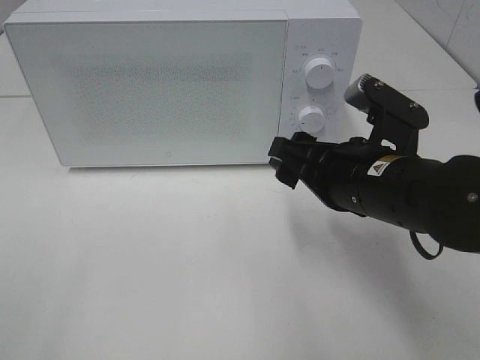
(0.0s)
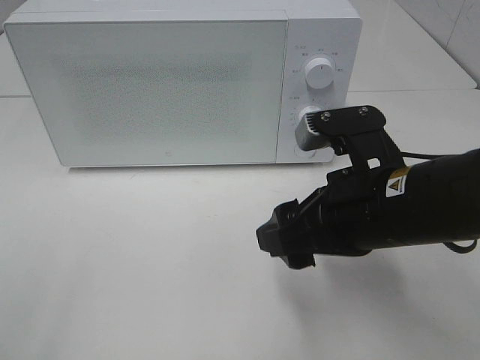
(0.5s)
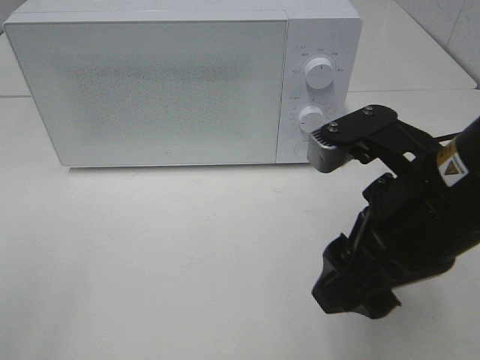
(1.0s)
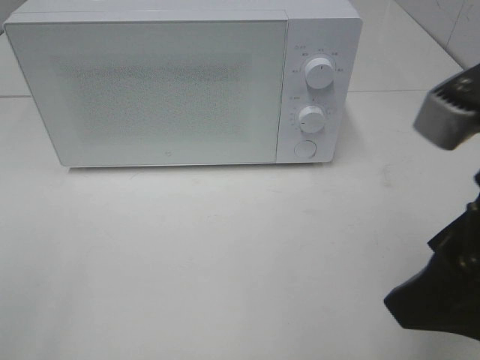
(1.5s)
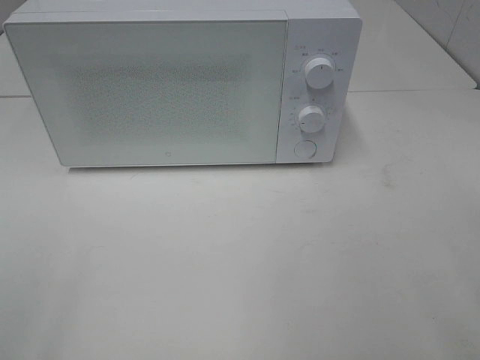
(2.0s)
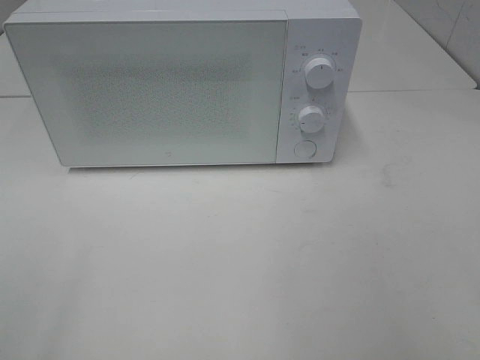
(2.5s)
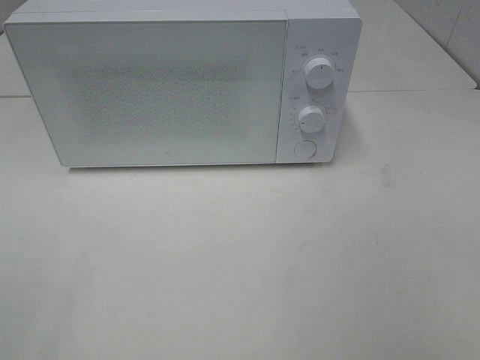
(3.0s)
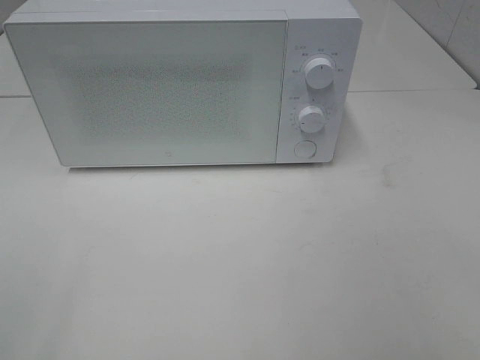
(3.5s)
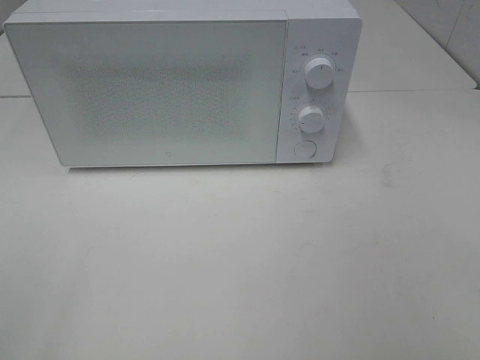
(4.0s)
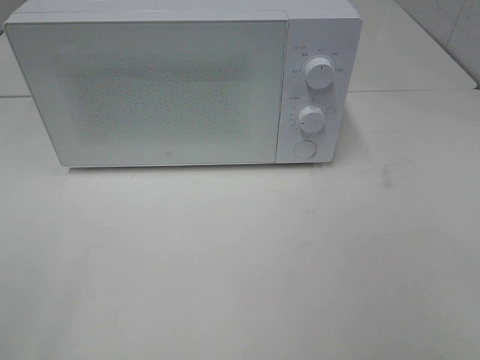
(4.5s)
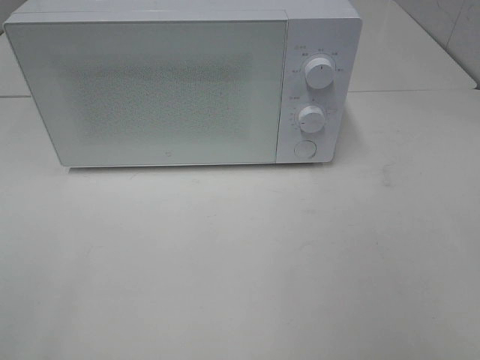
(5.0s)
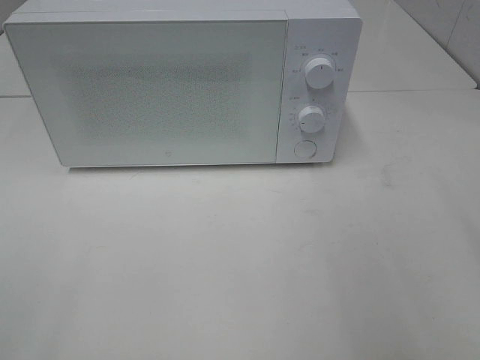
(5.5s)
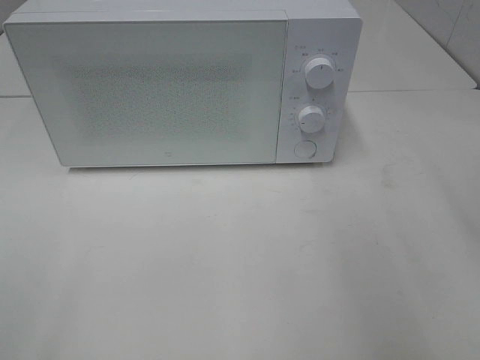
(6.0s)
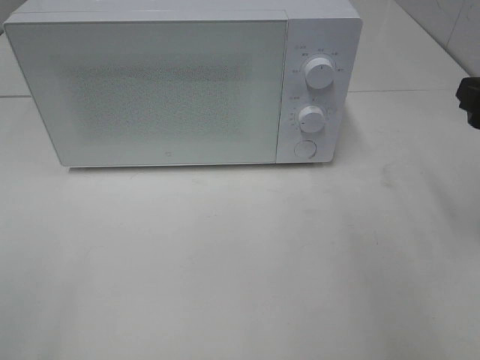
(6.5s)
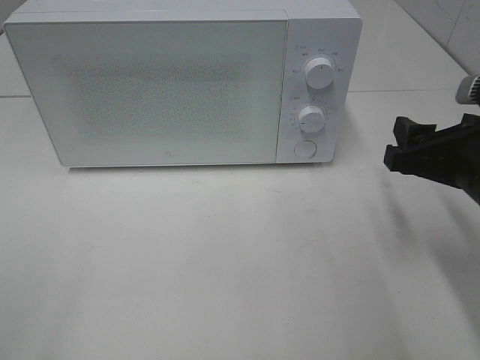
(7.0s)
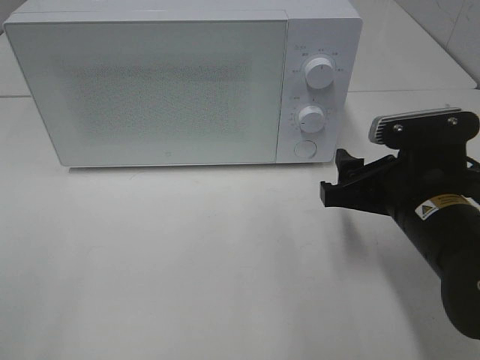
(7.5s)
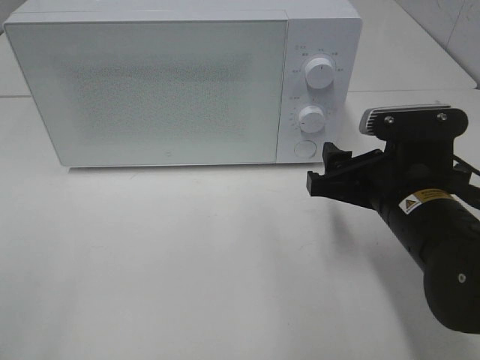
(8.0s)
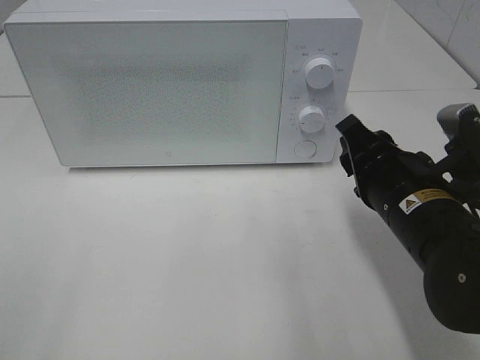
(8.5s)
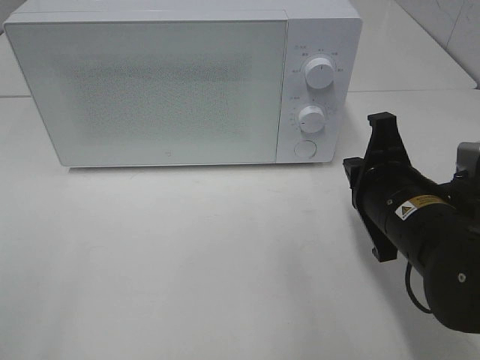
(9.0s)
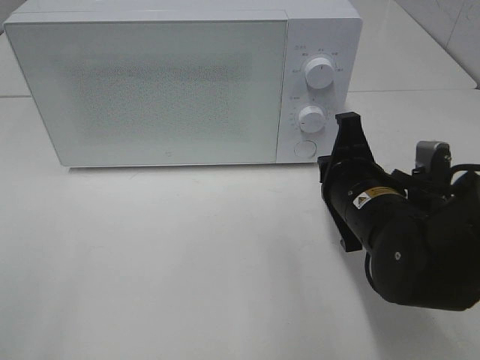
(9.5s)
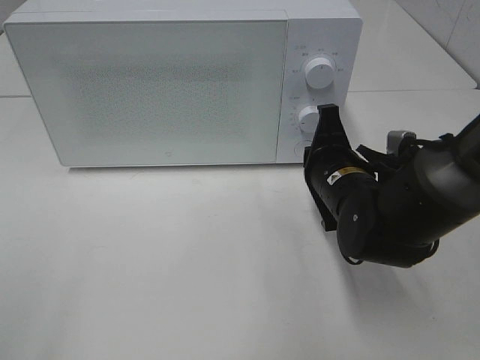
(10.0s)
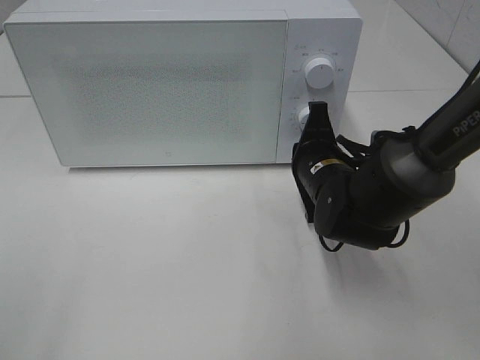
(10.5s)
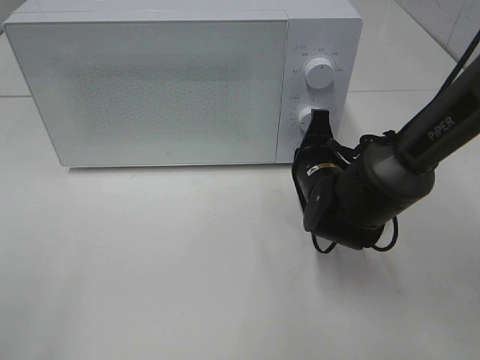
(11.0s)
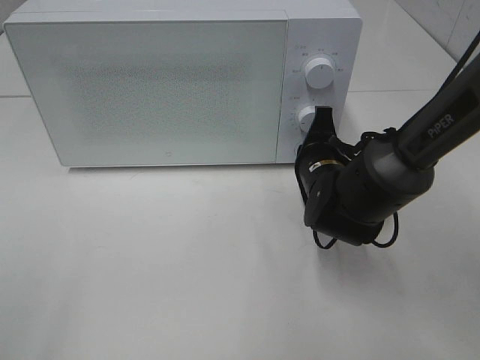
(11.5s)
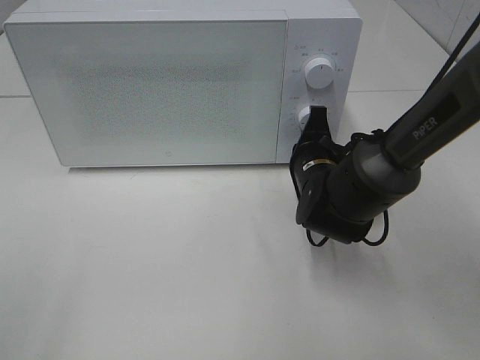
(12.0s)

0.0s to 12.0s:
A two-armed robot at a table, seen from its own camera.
Task of the whole recording: Heat the burger.
0.0s to 2.0s: The right gripper shifts some 25 cm upward, backward and to the right.
6.0s to 8.0s: The right gripper heads downward and to the left, covering about 20 cm.
8.0s to 10.0s: The right gripper moves forward, approximately 10 cm, and closes its fingers.
10.0s to 12.0s: The right gripper ends up about 5 cm from where it was.

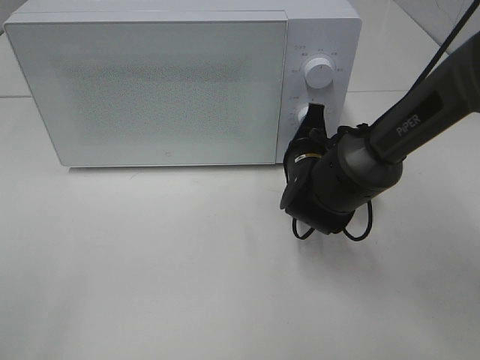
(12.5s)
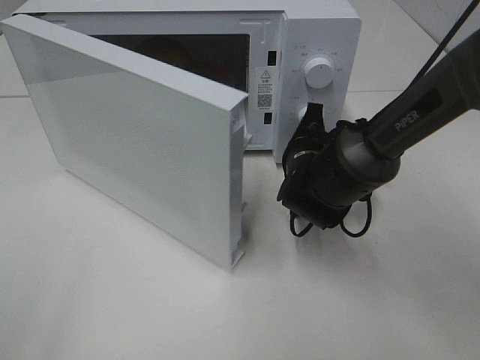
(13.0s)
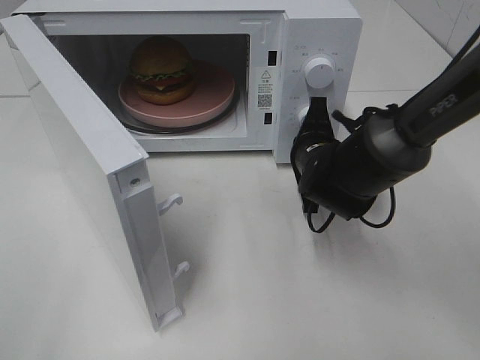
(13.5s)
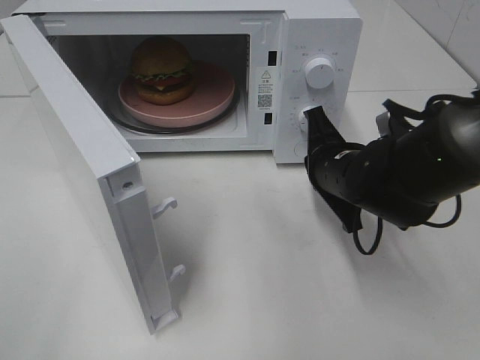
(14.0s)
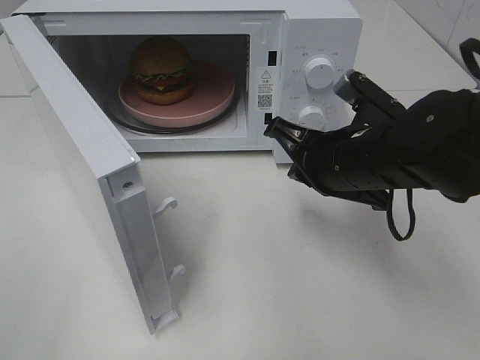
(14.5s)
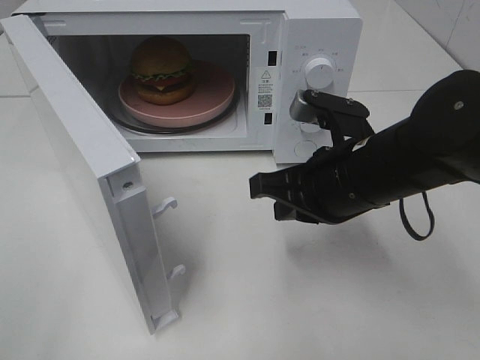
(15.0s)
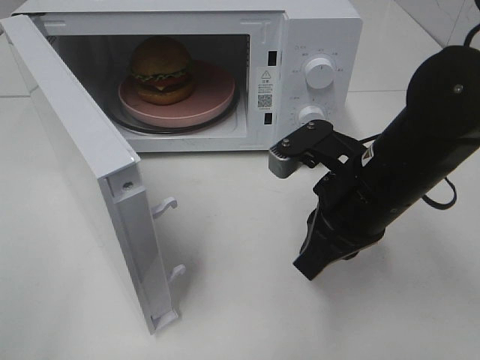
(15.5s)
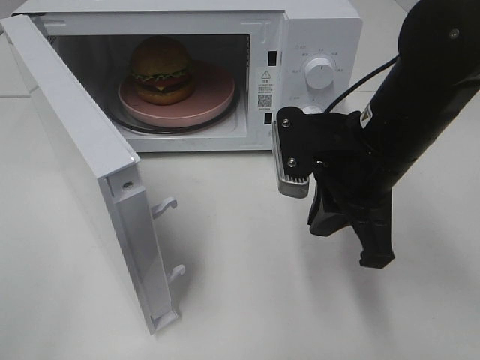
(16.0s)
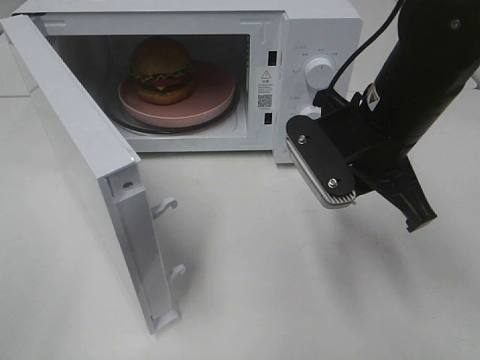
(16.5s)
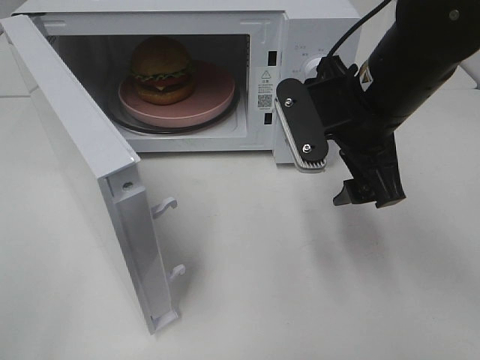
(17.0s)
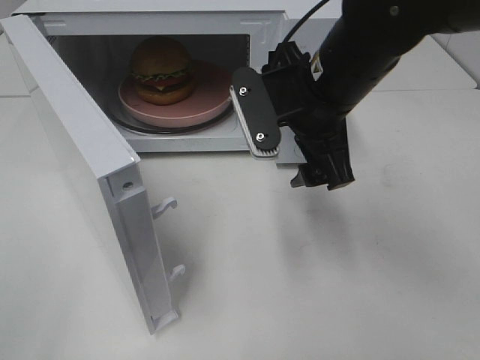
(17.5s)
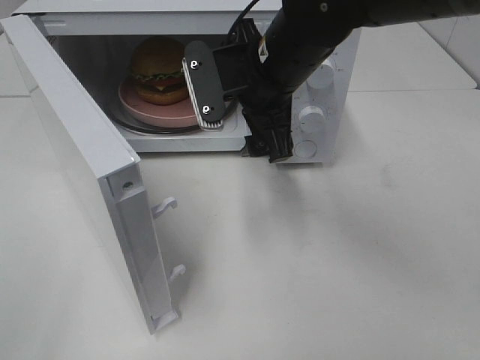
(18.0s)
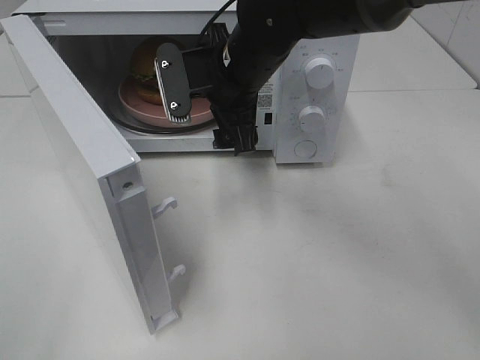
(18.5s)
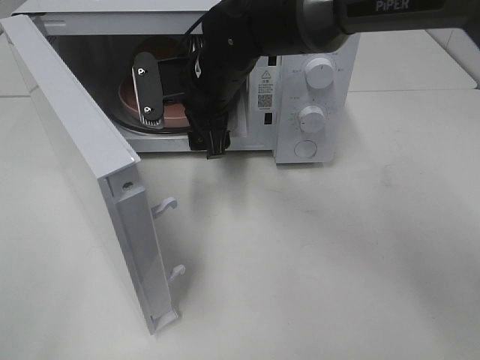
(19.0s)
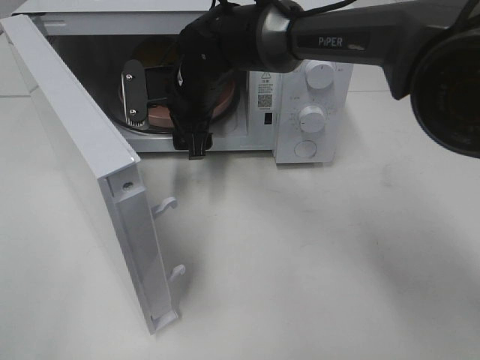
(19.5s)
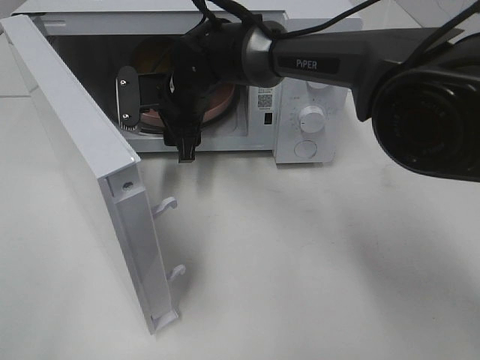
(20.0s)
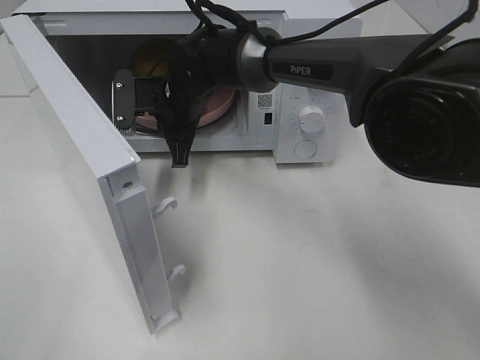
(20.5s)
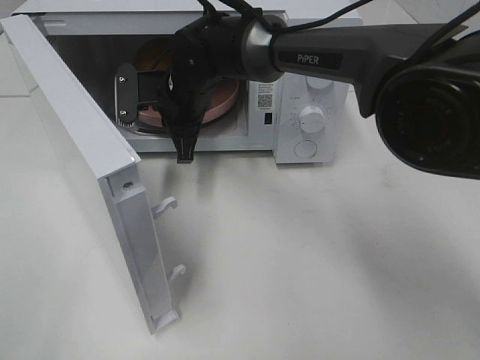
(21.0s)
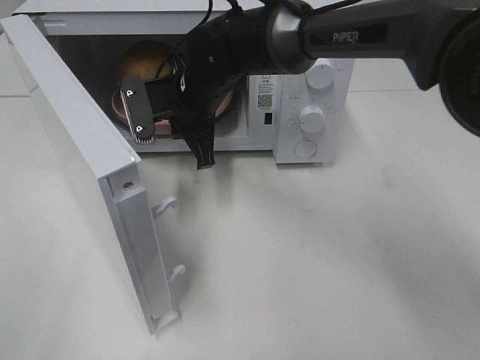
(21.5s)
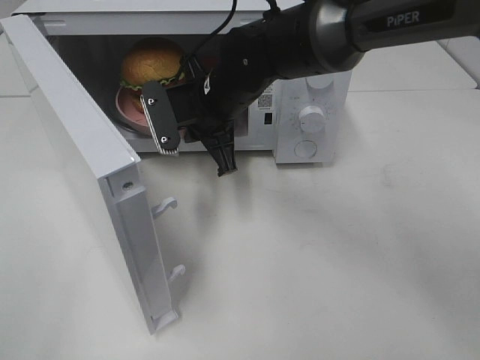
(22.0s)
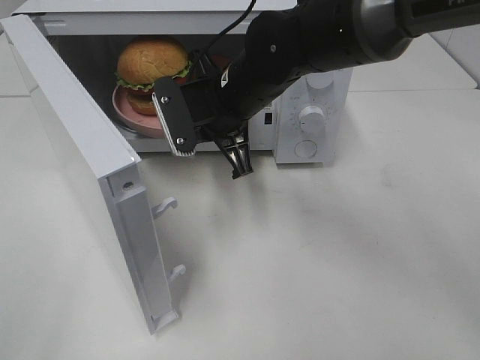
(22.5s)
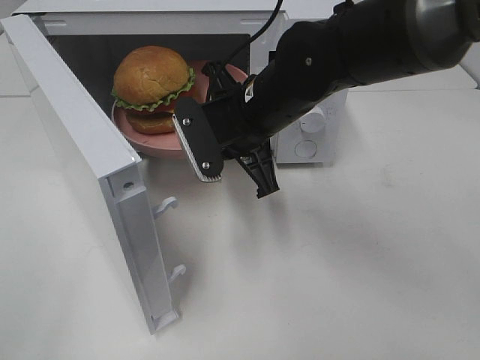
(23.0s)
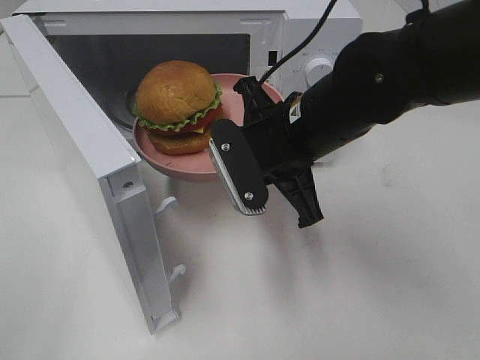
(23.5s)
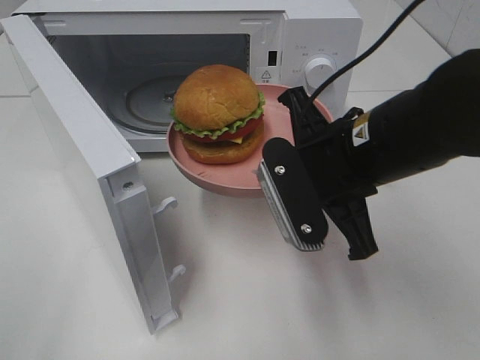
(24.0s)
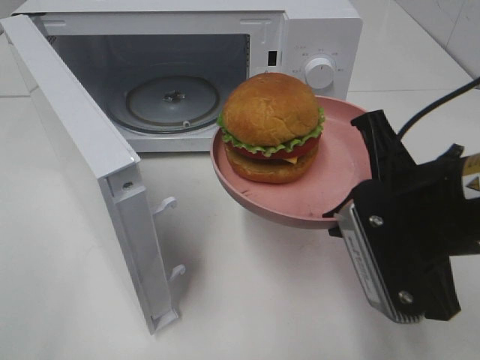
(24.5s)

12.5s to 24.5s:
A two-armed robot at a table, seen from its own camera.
Task of the whole recording: Heat the burger.
Step, 14.0s to 20.0s: Right hand: grab the plate with the hamburger.
12.5s to 14.5s: The right gripper heads upward and backward, covering some 10 cm.
14.5s to 16.5s: The right gripper travels upward by approximately 5 cm.
16.5s to 18.5s: The right gripper travels to the left and forward by approximately 15 cm, and opens.
18.5s to 20.5s: The right gripper heads downward, to the left and forward, covering about 10 cm, and closes.
20.5s to 22.5s: The right gripper moves backward and to the right, approximately 10 cm.
22.5s to 24.5s: The right gripper is displaced backward and to the right by approximately 25 cm.

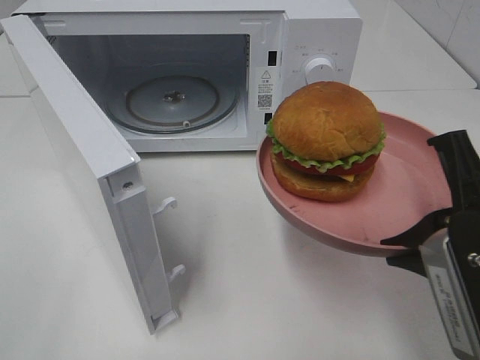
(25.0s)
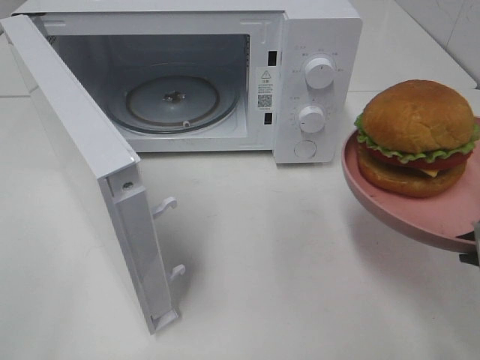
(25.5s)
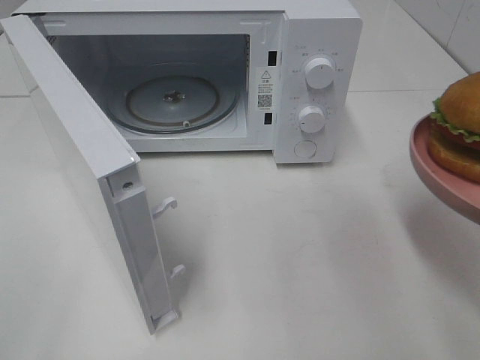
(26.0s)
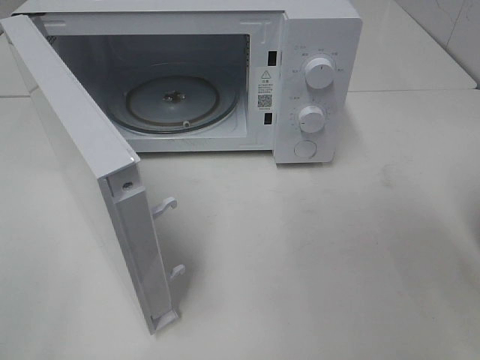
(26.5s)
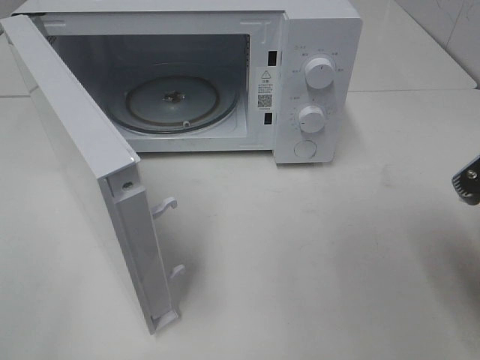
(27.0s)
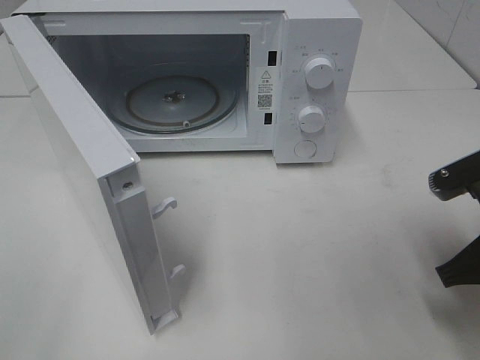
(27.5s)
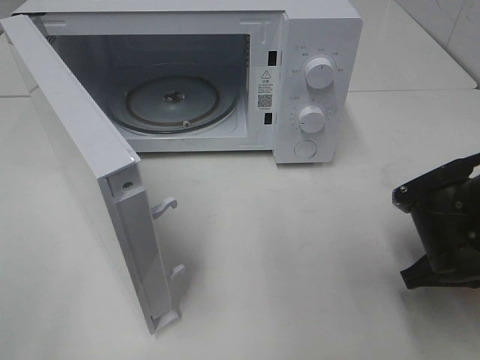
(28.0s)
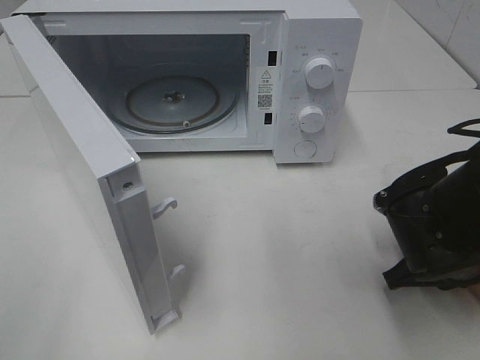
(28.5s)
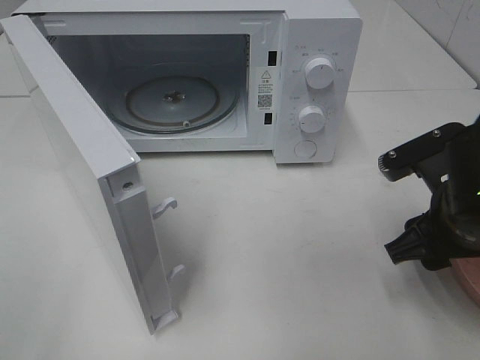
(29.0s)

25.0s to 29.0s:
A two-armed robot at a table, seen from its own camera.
Task of the whole recording: Heat the burger.
Step, 25.0s to 29.0s: Right hand: place the plate on the table.
25.0s to 27.0s: The right gripper changes place by roughly 5 cm.
27.0s to 29.0s: The right gripper travels forward by some 5 cm, and opens.
